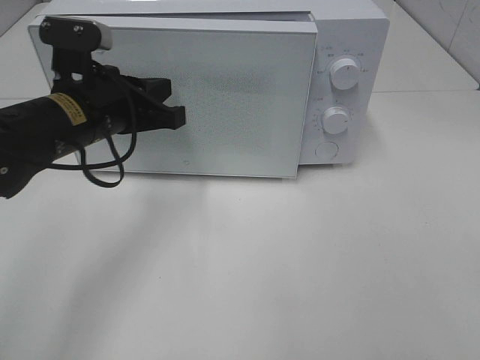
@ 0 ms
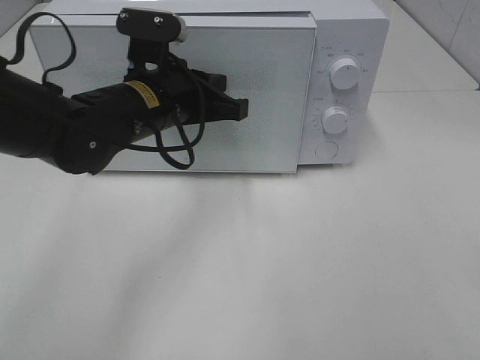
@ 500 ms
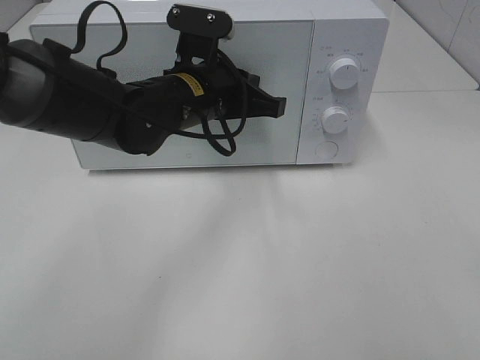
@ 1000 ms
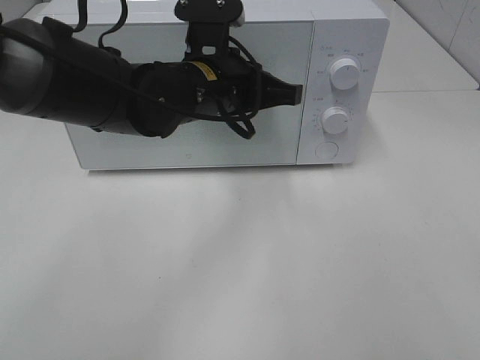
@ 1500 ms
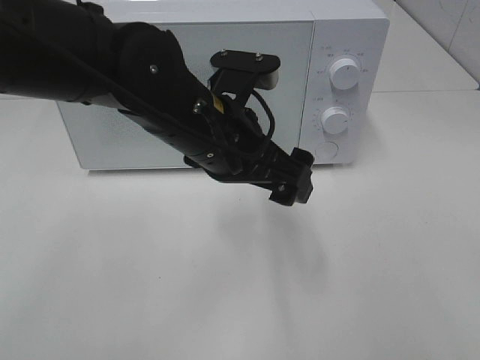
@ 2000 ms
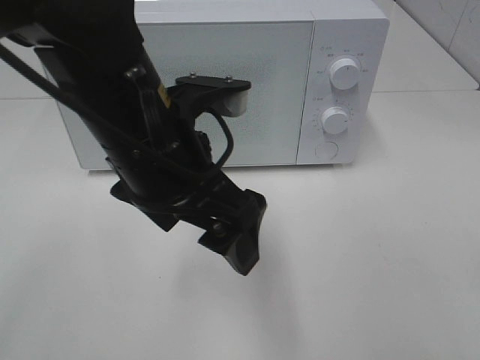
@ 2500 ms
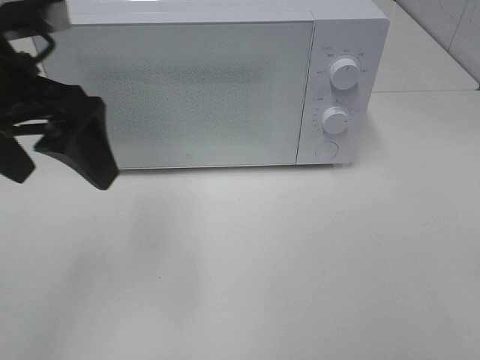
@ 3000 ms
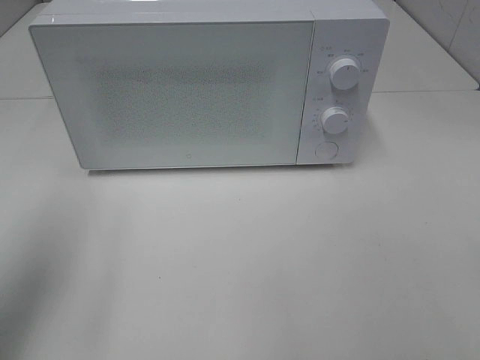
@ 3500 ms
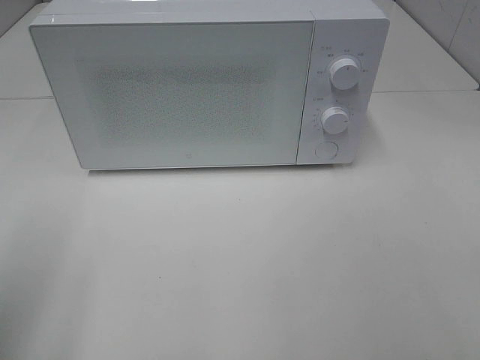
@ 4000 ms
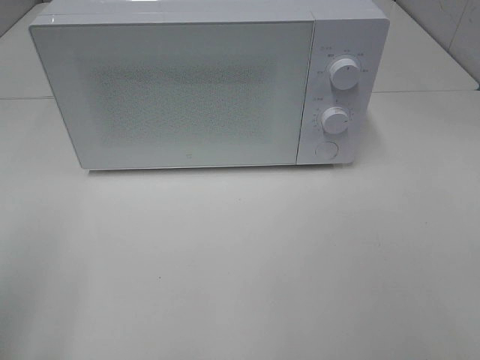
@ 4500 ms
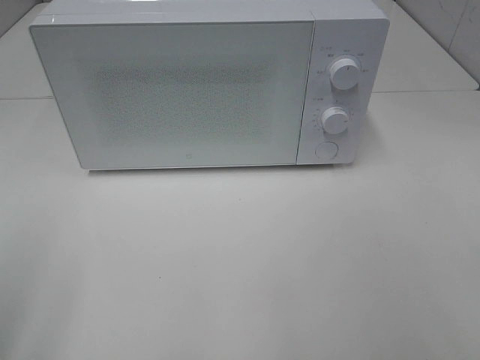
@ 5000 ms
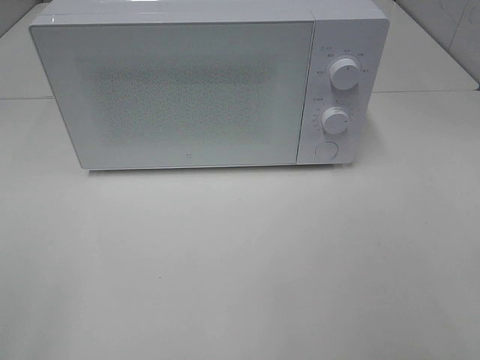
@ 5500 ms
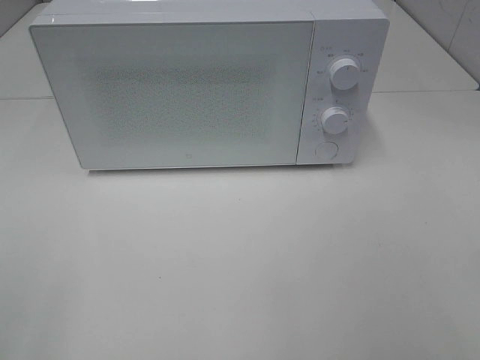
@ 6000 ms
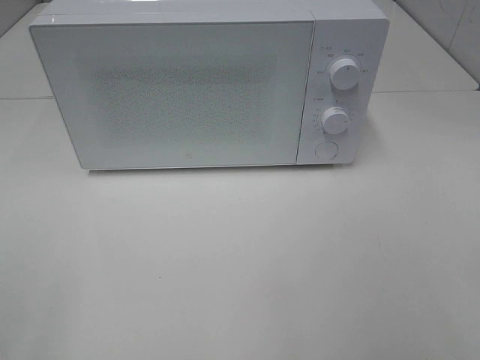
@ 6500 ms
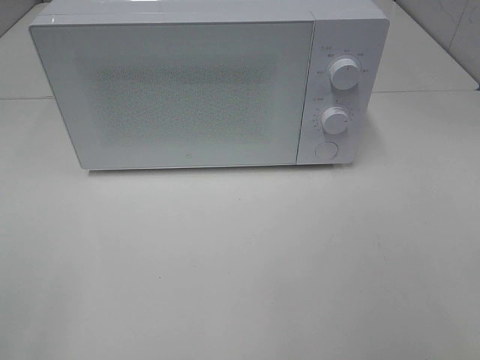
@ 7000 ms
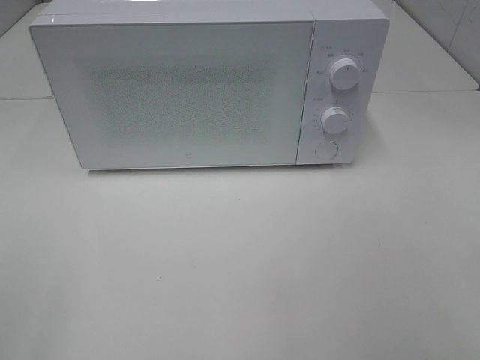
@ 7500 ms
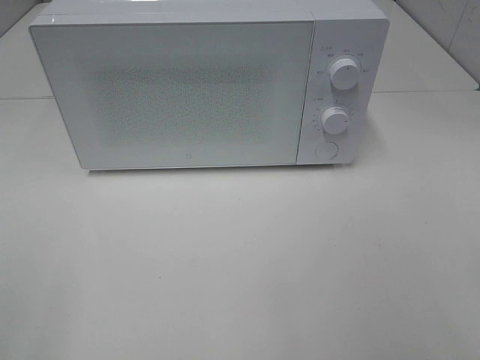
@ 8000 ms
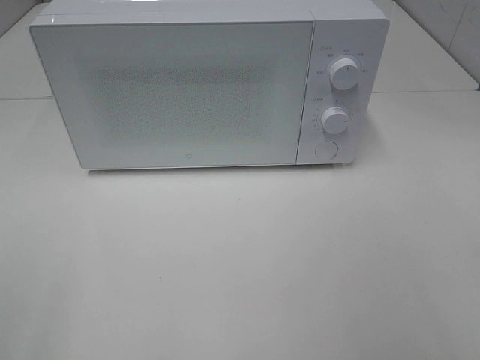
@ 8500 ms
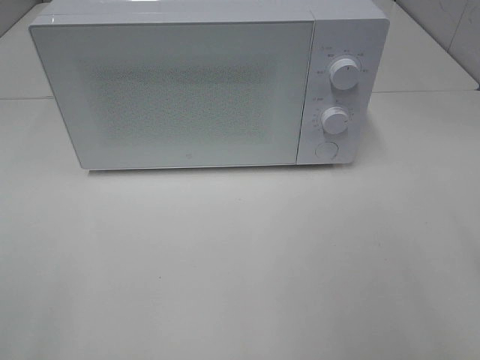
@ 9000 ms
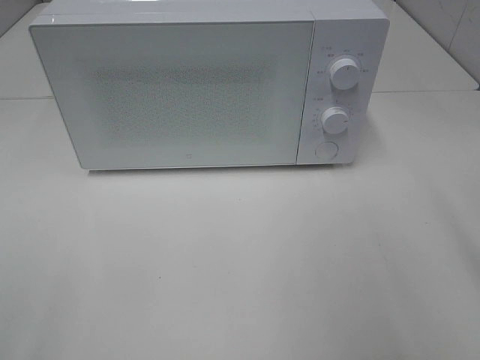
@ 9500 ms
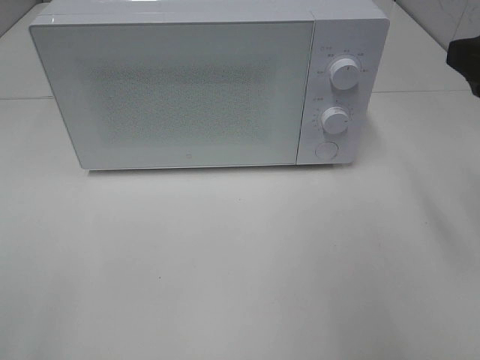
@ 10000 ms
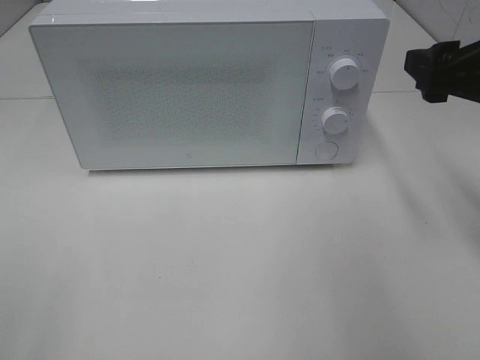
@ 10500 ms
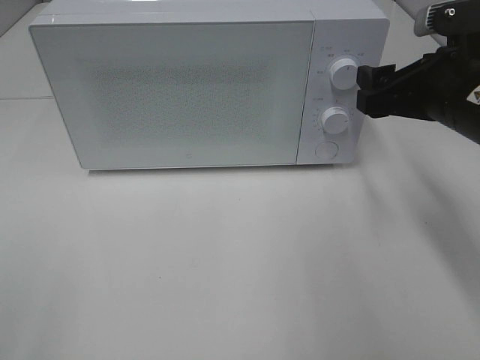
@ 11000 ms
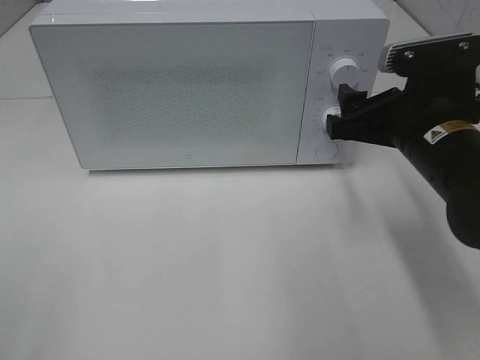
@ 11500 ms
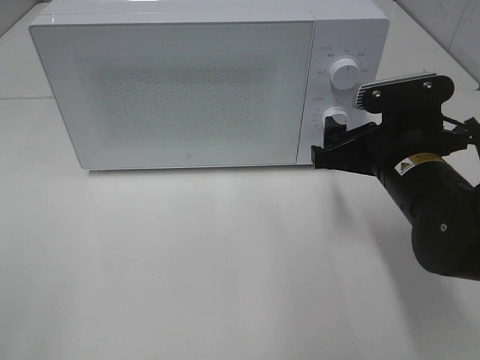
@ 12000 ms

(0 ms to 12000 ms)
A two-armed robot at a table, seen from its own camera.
Task of the whole recording: Heat the burger.
0 ms - 2000 ms: The left gripper shifts roughly 15 cm to the right, and opens up.
2000 ms - 4000 ms: The left gripper shifts some 30 cm to the left and backward.
6000 ms - 8000 ms: Neither gripper changes place.
8000 ms - 10000 ms: The right gripper goes roughly 20 cm forward.
10000 ms - 12000 ms: The right gripper goes some 15 cm downward and to the left.

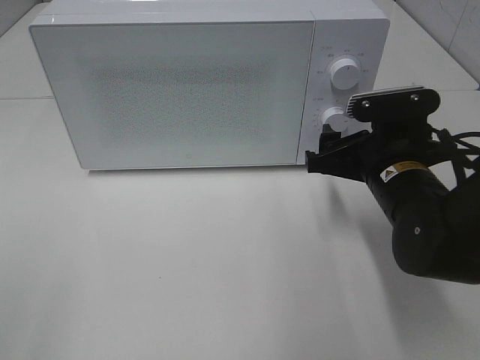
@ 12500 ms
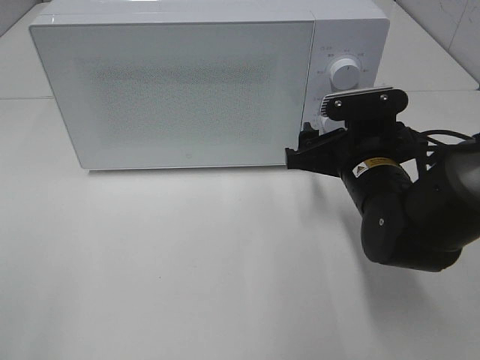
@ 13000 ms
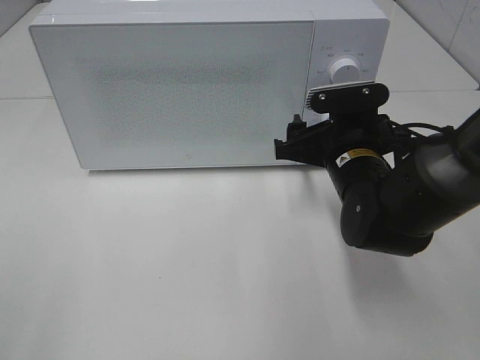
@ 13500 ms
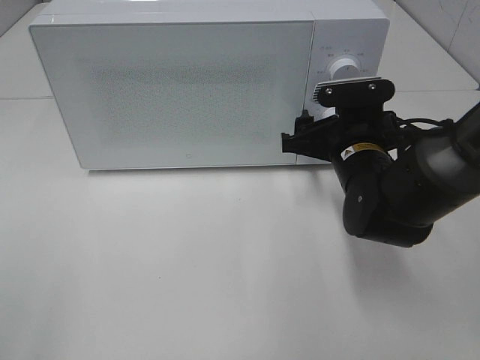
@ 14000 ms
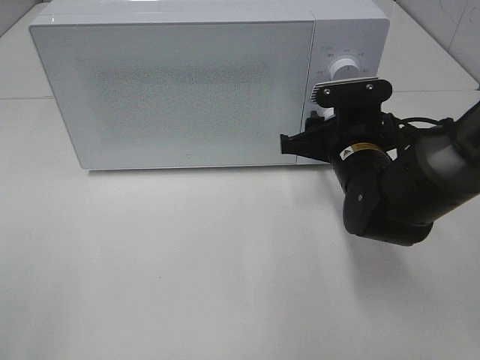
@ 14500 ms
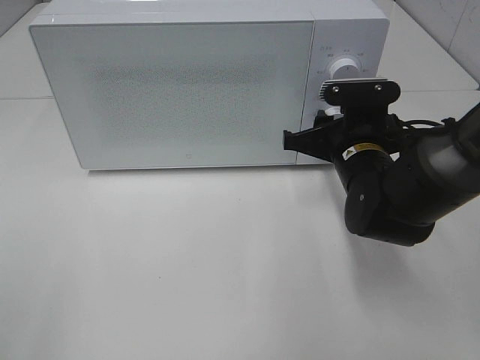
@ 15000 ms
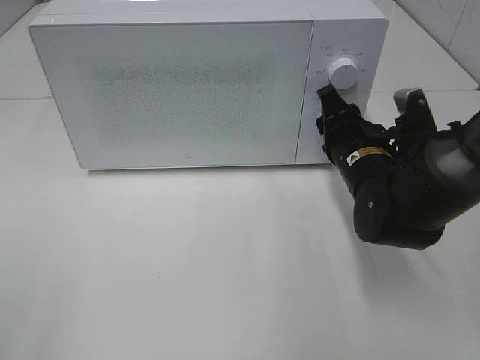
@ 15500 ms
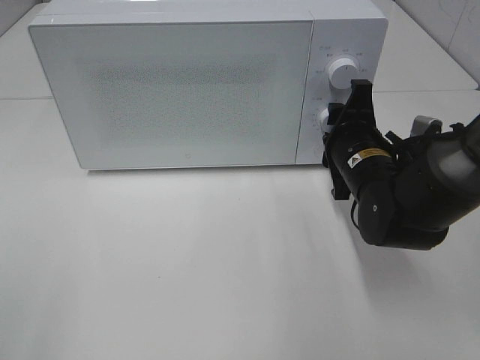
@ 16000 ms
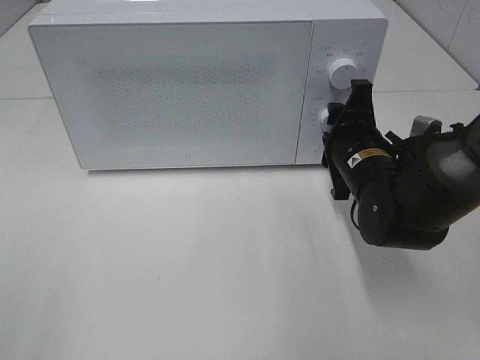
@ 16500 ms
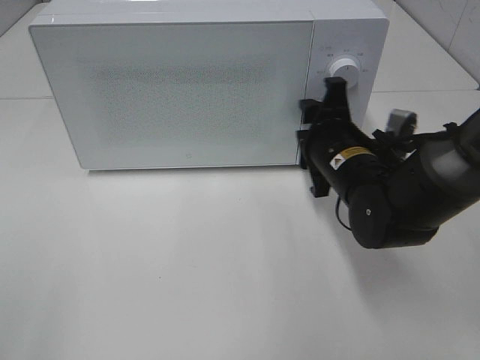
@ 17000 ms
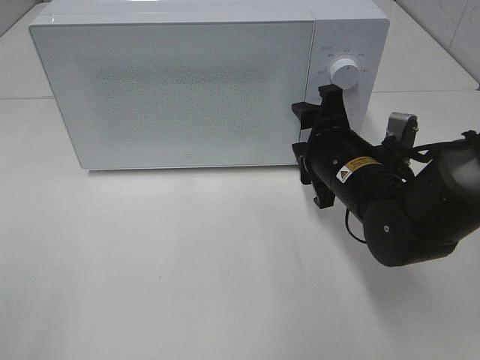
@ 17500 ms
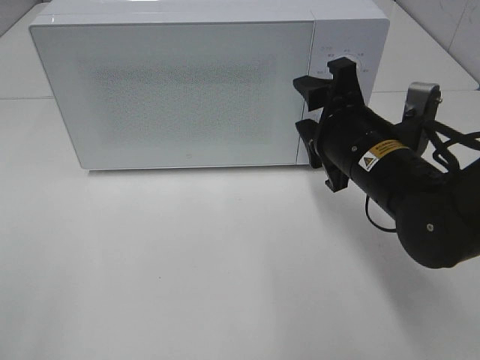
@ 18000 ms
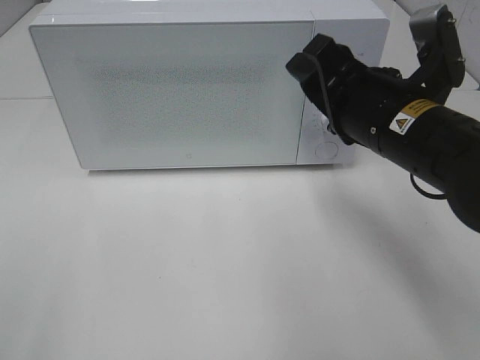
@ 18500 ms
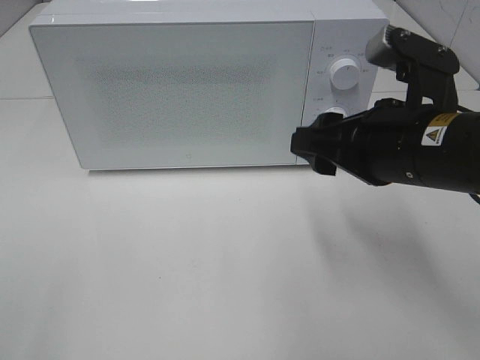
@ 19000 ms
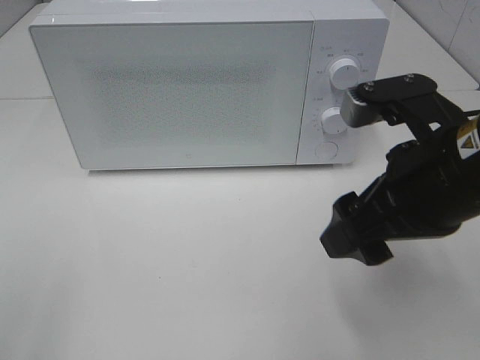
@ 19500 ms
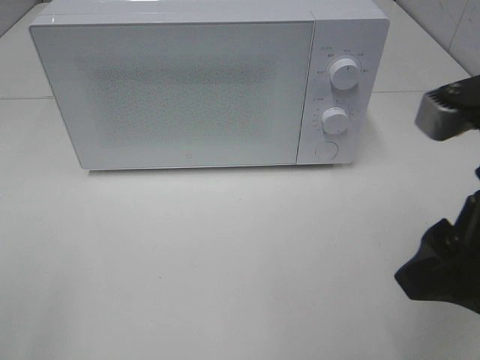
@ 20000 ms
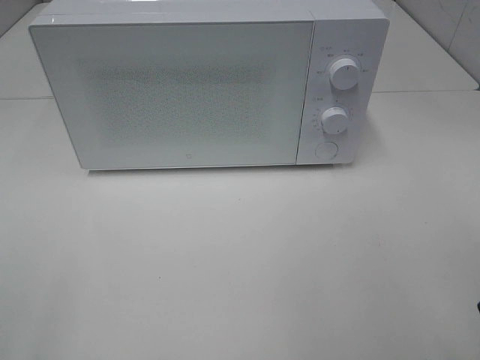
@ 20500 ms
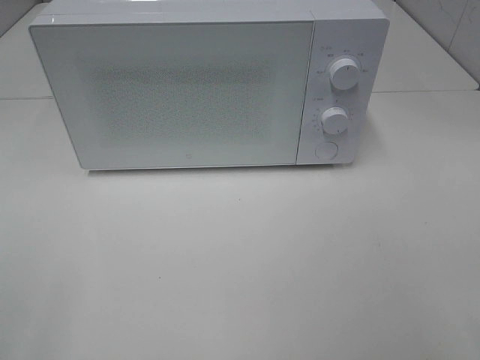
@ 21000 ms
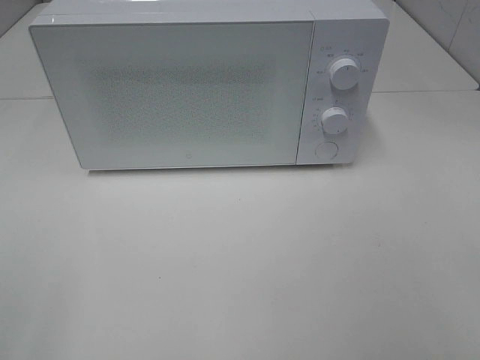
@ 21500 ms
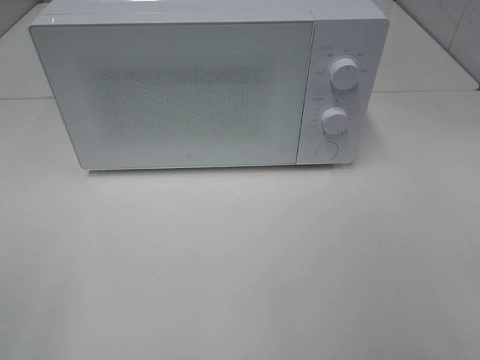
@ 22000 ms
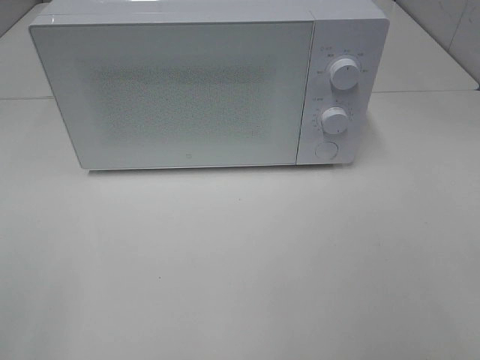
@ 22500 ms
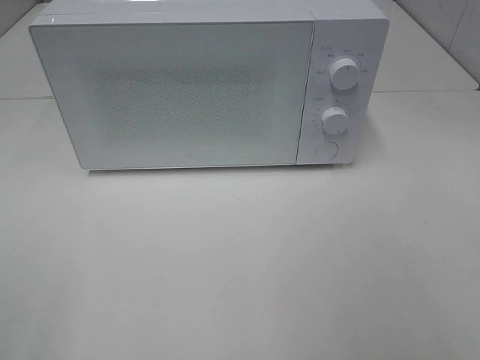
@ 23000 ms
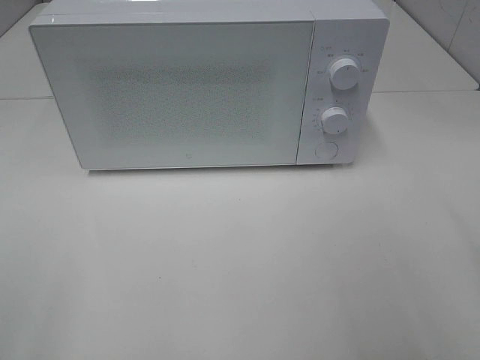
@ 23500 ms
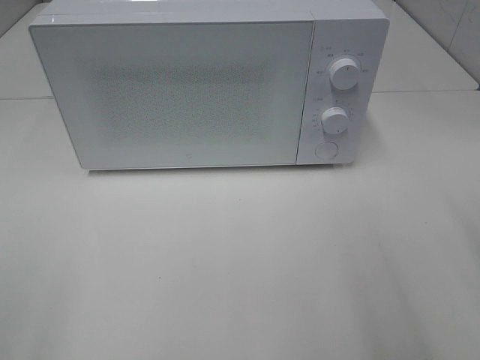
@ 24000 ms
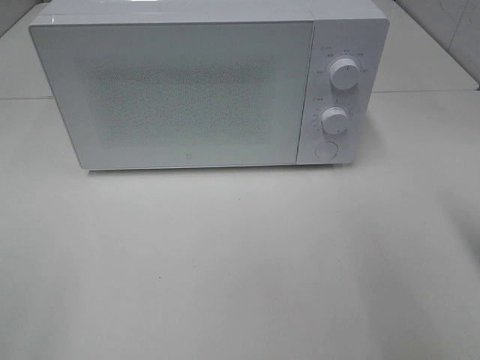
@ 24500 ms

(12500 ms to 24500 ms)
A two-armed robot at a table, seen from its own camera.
Task of the whole recording: Heat the burger.
Step, 12500 ms - 16500 ms: Right hand: twist timer button.
12500 ms - 14500 ms: The right gripper shifts some 5 cm forward.
16500 ms - 18500 ms: The right gripper shifts roughly 10 cm upward and backward.
18500 ms - 20500 ms: The right gripper goes some 20 cm backward and to the right.

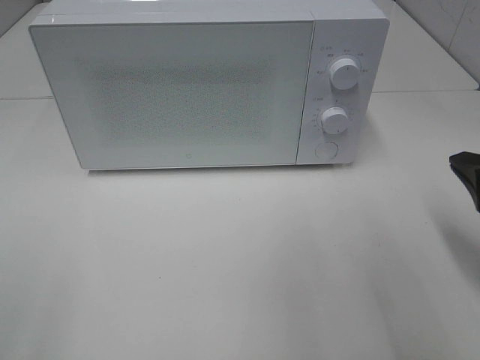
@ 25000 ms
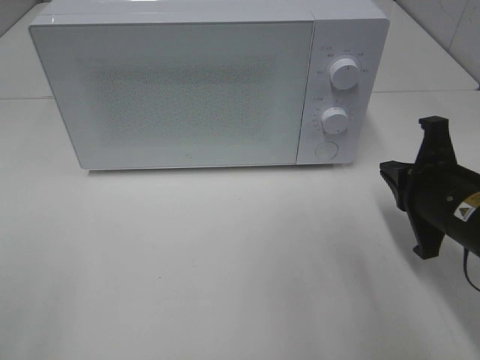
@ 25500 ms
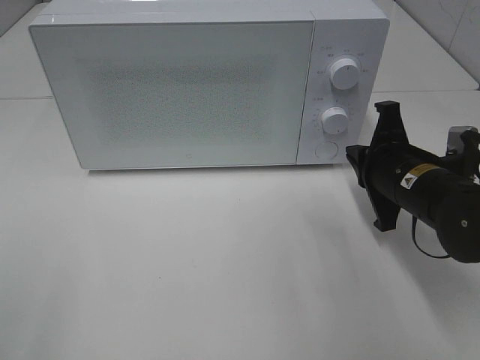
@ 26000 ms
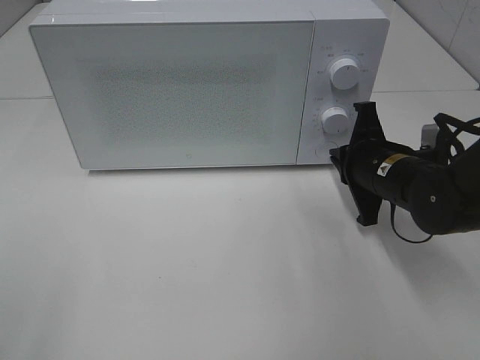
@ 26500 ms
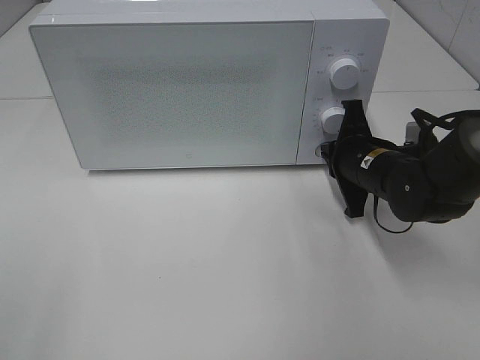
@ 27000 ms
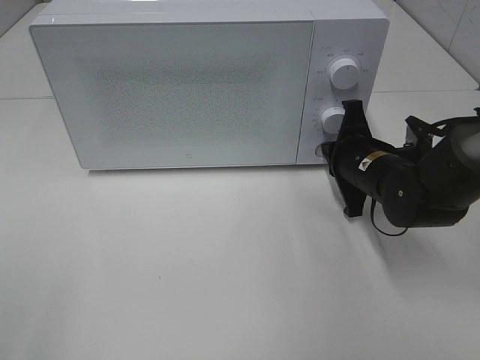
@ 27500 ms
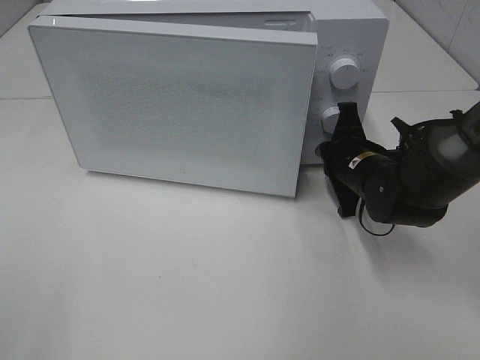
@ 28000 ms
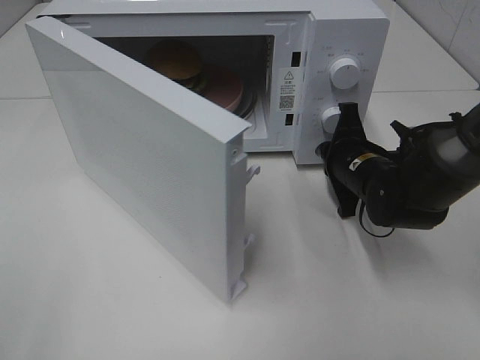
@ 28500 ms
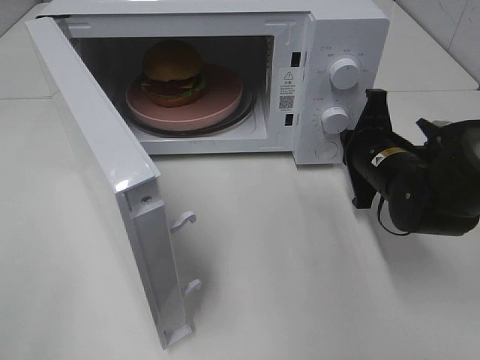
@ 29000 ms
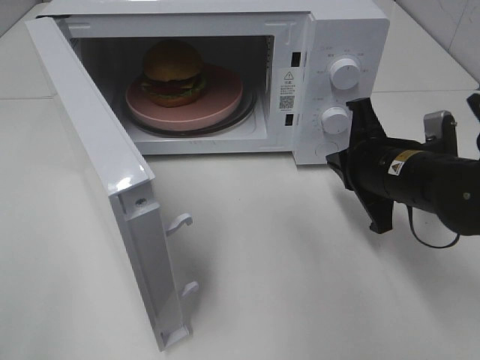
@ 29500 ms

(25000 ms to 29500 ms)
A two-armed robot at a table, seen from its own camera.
Task of the whole recording: Heat the burger.
Step, 25000 ms - 28500 ms: Right hand: press the switch.
25000 ms - 27000 ms: The right gripper moves forward, to the left and downward, roughly 20 cm.
27000 ms - 29500 ms: The right gripper heads backward, covering approximately 5 cm.
